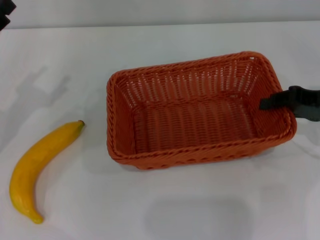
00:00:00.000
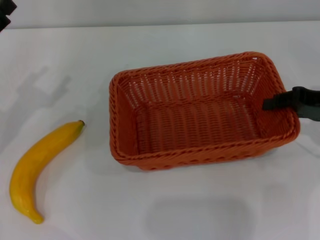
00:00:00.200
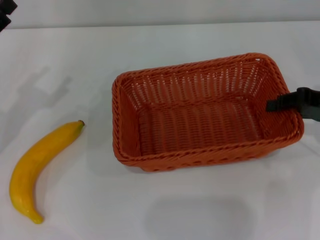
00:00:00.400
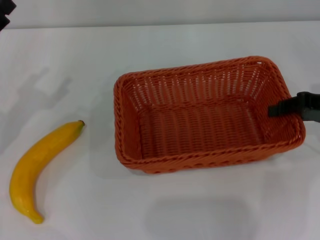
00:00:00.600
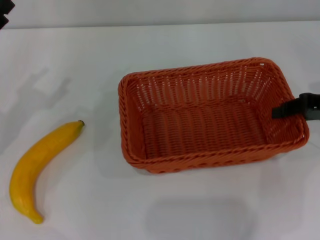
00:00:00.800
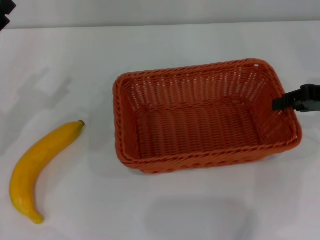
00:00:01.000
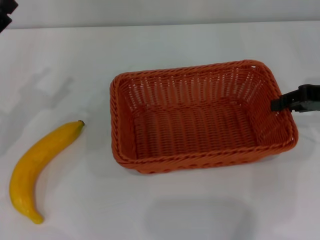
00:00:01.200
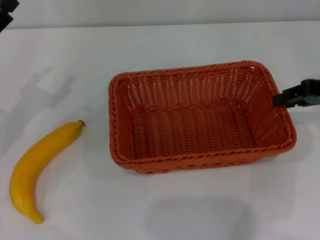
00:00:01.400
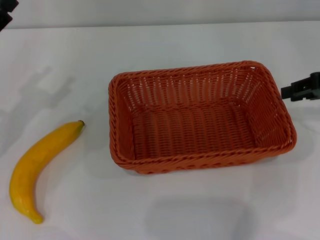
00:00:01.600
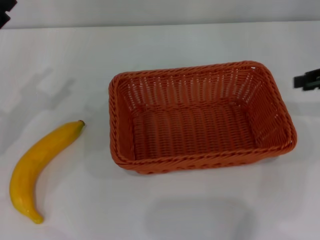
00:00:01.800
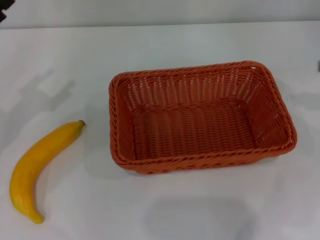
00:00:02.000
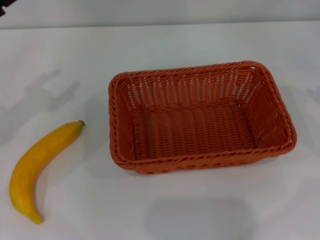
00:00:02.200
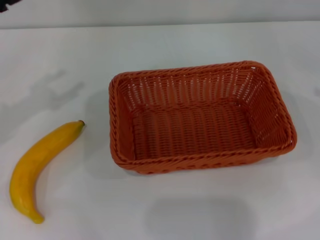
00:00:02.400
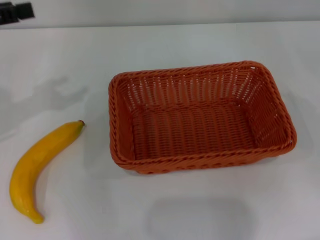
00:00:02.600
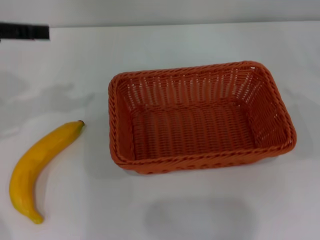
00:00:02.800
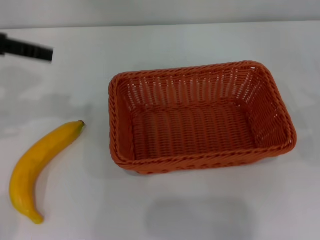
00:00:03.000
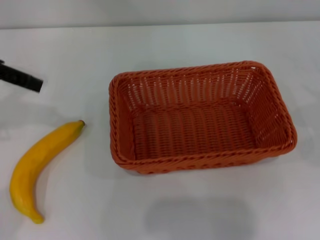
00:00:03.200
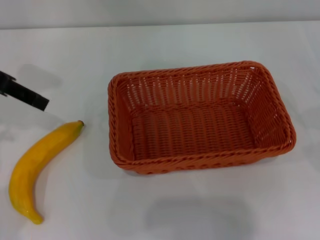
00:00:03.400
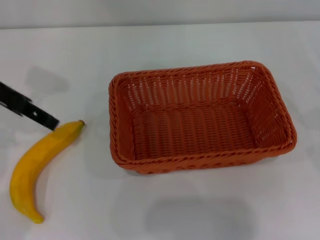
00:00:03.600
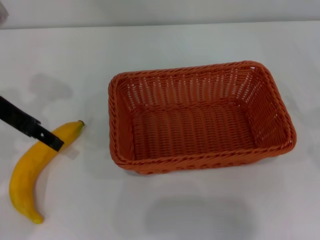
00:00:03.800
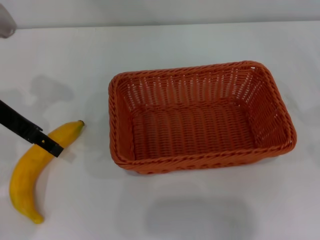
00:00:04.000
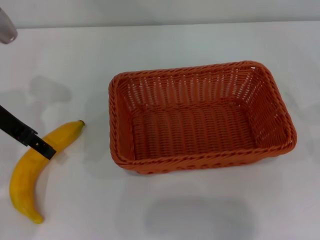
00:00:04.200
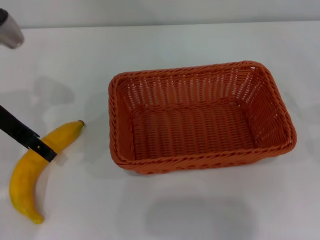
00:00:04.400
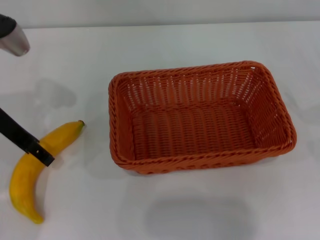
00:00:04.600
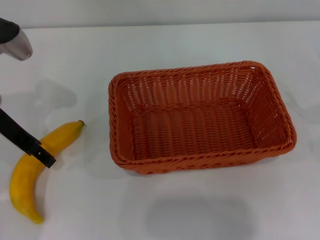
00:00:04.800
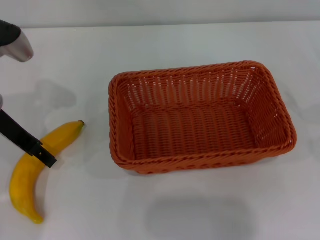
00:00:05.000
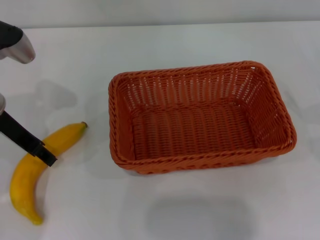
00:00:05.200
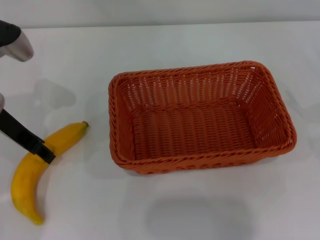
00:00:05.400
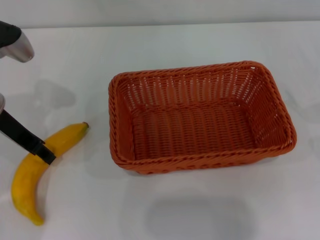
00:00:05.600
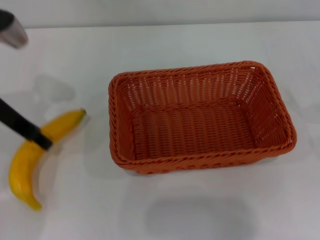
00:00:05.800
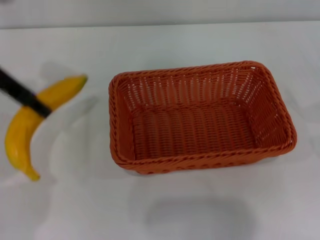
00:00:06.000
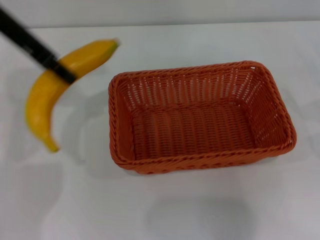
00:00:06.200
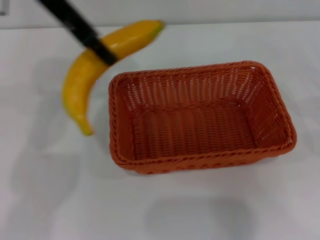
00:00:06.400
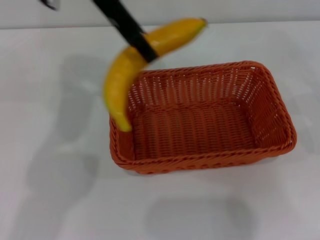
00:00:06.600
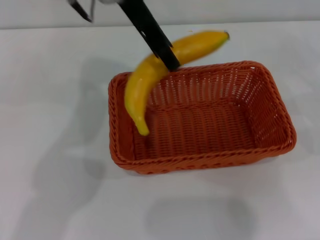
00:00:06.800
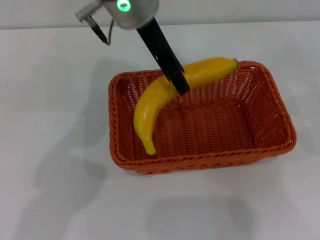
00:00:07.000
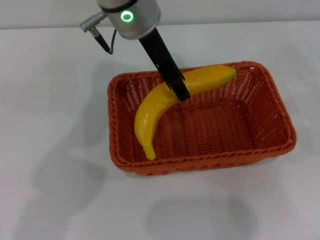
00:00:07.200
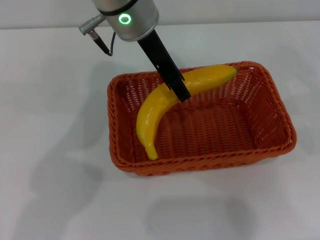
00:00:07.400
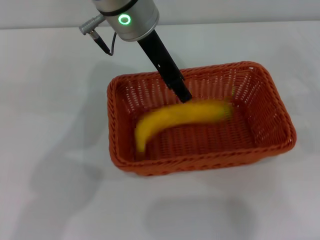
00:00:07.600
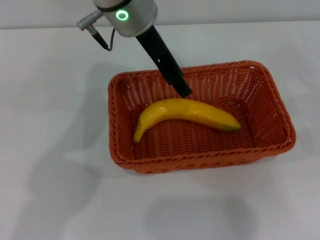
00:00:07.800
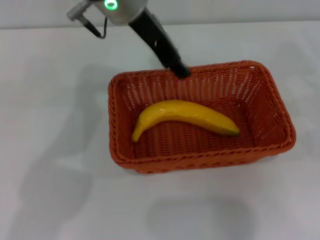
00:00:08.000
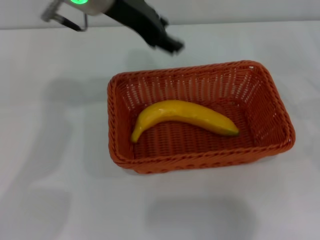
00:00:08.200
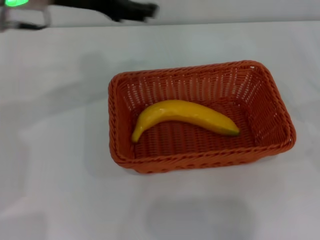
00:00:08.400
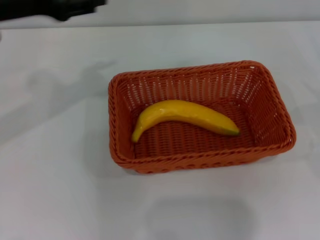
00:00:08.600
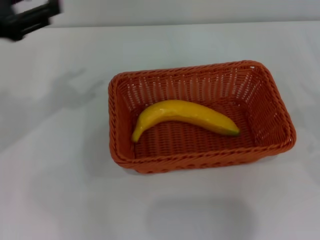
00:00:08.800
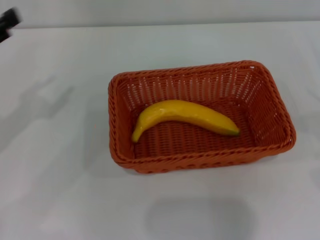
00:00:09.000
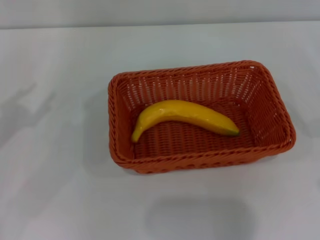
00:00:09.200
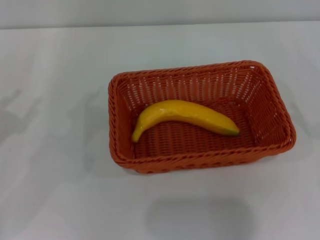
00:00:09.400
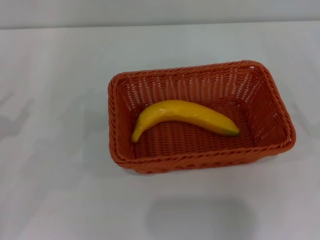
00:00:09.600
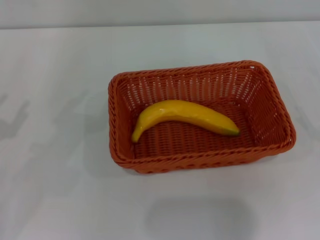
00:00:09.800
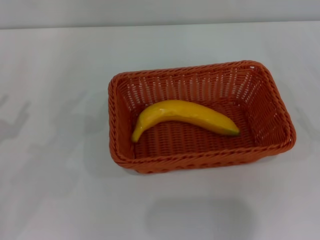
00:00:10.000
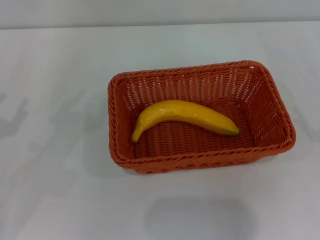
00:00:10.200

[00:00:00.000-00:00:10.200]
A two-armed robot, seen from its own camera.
Step, 00:00:01.600 to 00:00:06.000: Pick up the banana with the left gripper.
Step, 00:00:06.200 to 00:00:08.000: Place the banana into the light basket with the left gripper.
00:00:00.000 to 00:00:01.400: The grippers stay close to where they were, moving slightly.
00:00:01.400 to 00:00:03.000: The right gripper goes roughly 15 cm to the right and backward; the left gripper travels upward by about 15 cm.
00:00:03.000 to 00:00:04.400: The left gripper goes approximately 10 cm downward.
00:00:04.400 to 00:00:05.800: The left gripper closes.
00:00:05.800 to 00:00:07.200: The left gripper shifts roughly 20 cm to the right.
00:00:07.200 to 00:00:08.800: The left gripper travels to the left by some 25 cm, and opens.
00:00:08.800 to 00:00:10.200: The left gripper goes about 15 cm downward, backward and to the left.

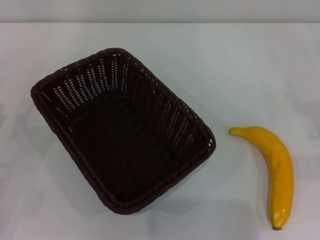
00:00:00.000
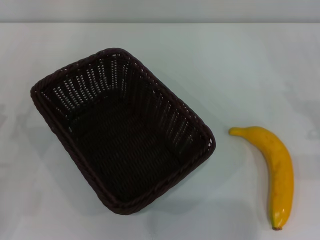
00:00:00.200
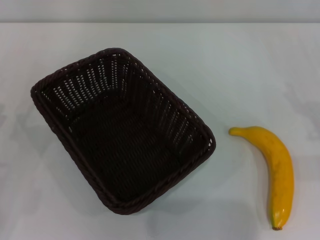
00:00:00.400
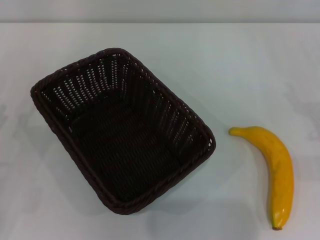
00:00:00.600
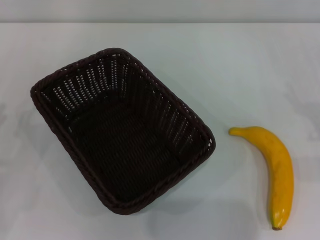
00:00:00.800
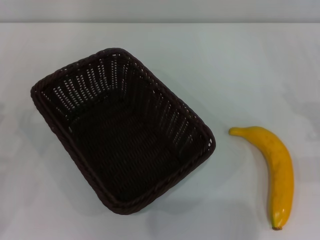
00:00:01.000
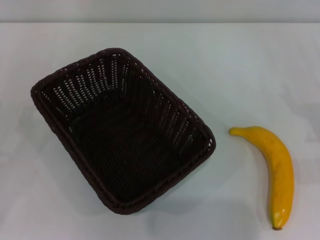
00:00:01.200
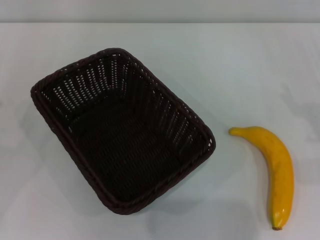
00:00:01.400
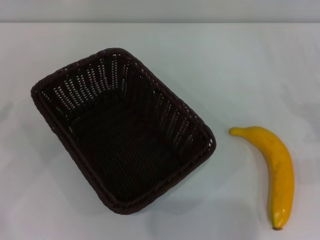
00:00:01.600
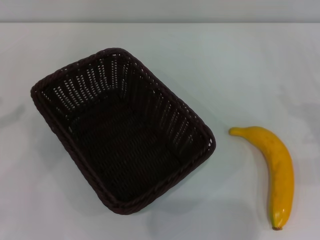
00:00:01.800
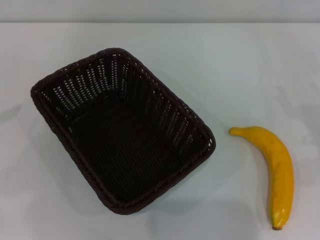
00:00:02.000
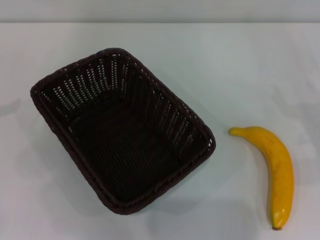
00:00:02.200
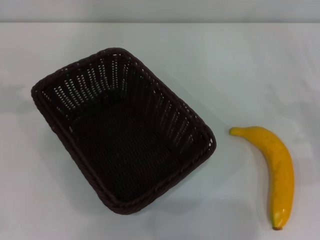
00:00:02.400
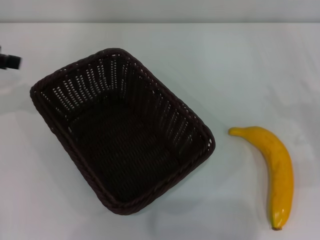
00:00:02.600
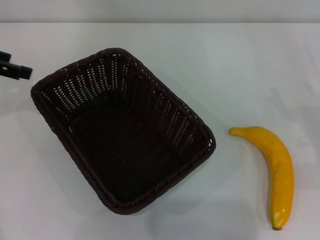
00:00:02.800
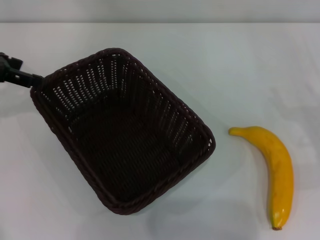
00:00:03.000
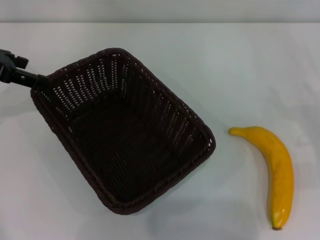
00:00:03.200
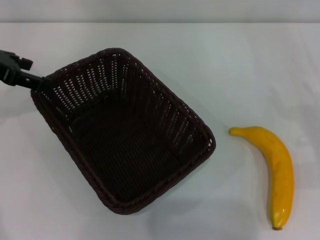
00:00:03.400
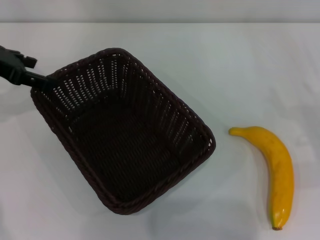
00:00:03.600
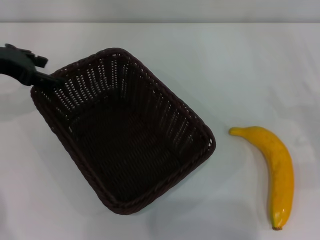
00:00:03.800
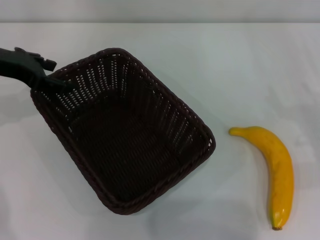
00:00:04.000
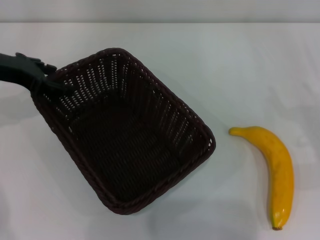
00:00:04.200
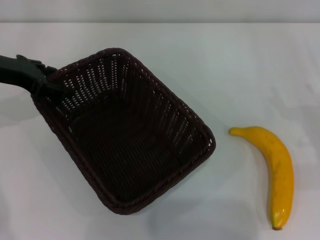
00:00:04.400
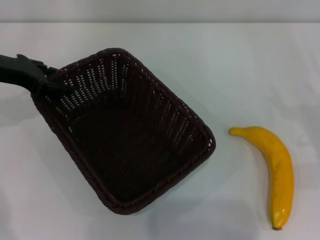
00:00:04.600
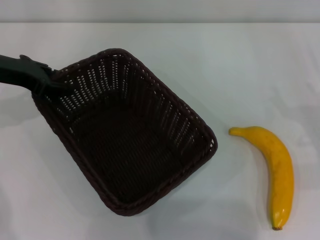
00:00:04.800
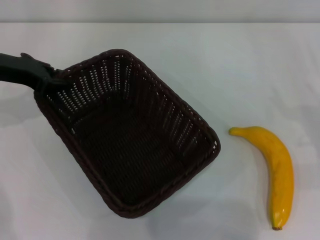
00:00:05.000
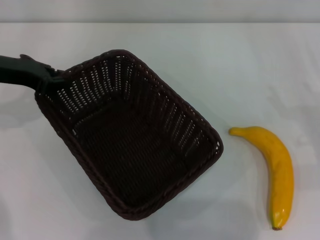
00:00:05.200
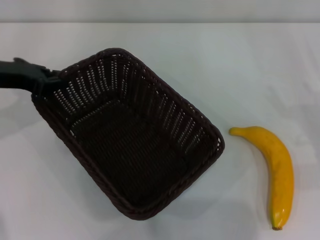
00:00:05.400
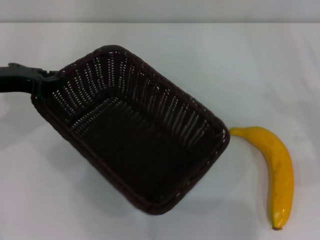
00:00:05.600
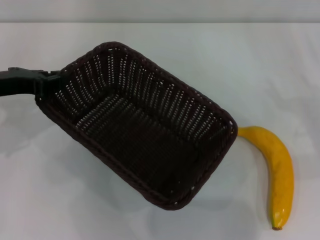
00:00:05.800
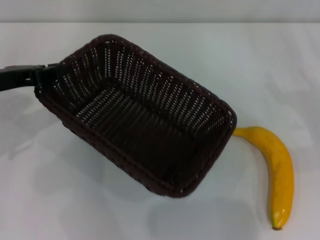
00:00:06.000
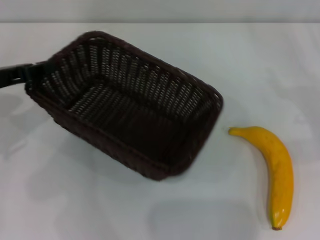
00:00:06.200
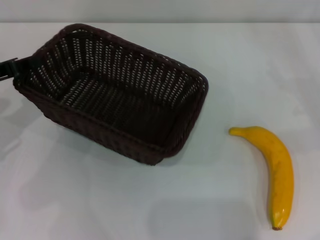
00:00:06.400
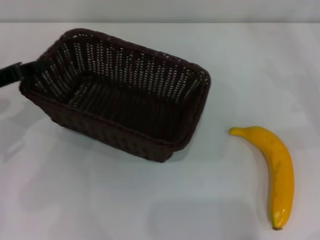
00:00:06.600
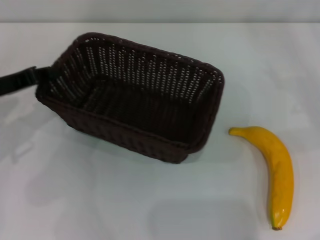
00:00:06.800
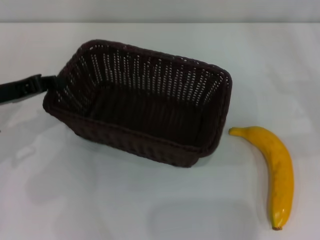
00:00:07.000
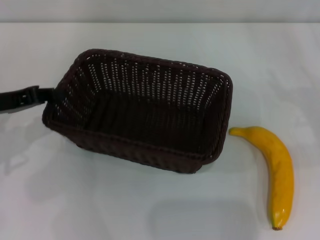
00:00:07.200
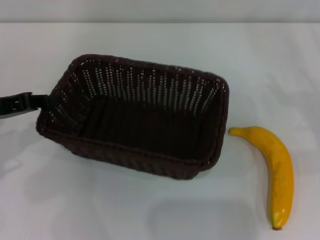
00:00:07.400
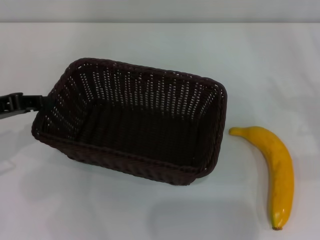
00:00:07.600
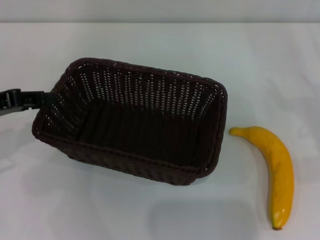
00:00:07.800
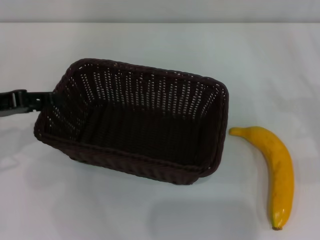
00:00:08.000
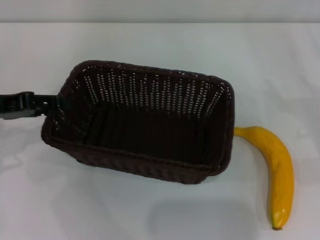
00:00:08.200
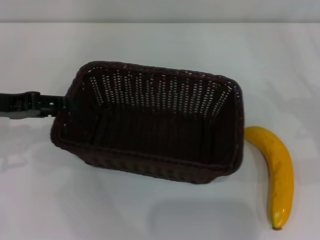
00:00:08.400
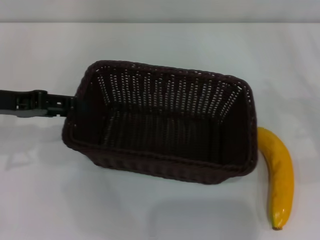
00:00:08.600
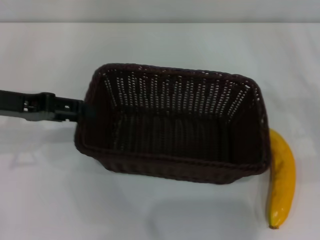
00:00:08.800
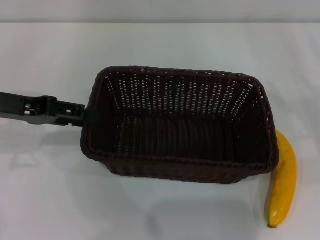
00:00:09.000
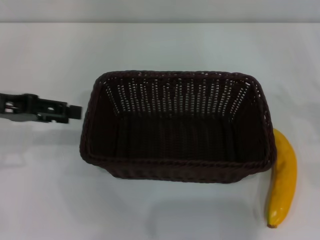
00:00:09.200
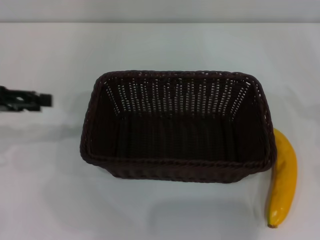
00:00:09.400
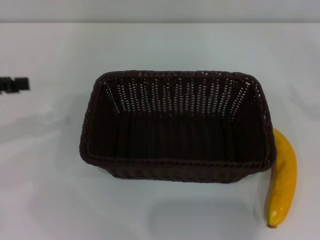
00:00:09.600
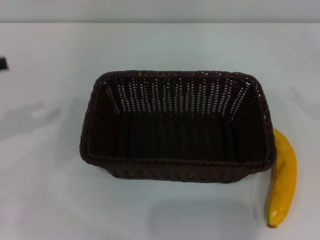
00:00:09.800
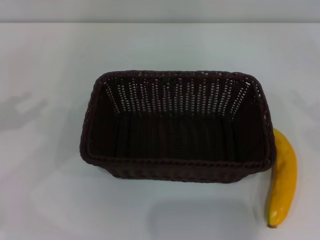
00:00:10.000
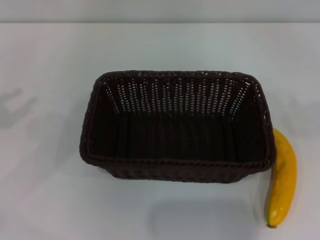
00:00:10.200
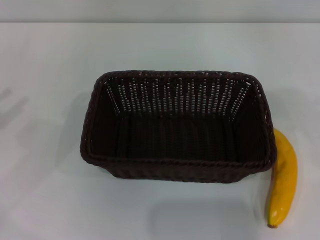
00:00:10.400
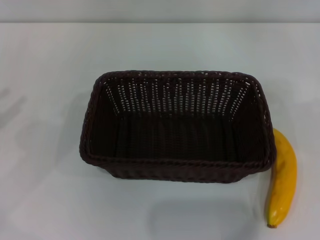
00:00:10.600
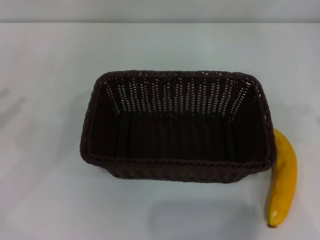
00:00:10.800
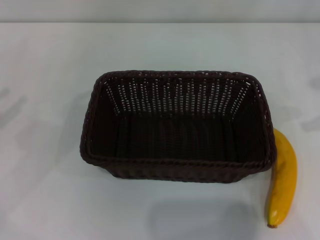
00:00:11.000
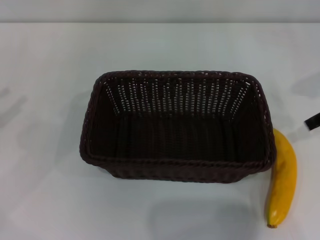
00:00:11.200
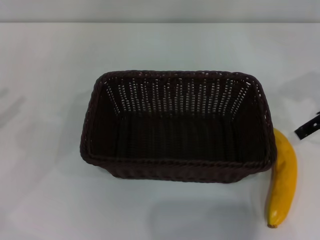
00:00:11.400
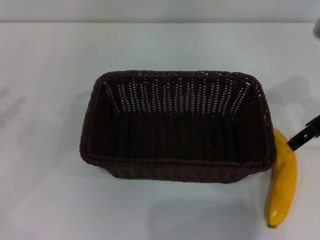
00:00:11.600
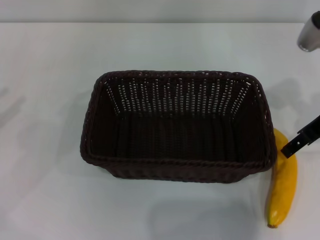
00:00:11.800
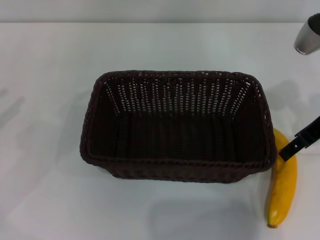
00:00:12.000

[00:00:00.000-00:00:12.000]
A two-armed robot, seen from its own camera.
Step, 00:00:00.000 to 00:00:06.400: Pick up the dark basket with the left gripper.
Step, 00:00:06.600 to 00:00:09.400: Place the dark basket in the center of view with the left gripper.
00:00:01.600 to 00:00:03.000: The left gripper moves forward and to the right, some 20 cm.
00:00:03.000 to 00:00:04.400: The left gripper shifts by roughly 5 cm.
00:00:04.400 to 00:00:06.000: The left gripper goes approximately 5 cm backward, and closes its fingers.
00:00:06.000 to 00:00:07.600: The grippers move only a little.
00:00:07.600 to 00:00:09.000: The left gripper opens its fingers.
00:00:09.000 to 00:00:10.400: The left gripper is displaced to the left and backward by about 15 cm. The right gripper is displaced upward by approximately 15 cm.
00:00:10.400 to 00:00:12.000: The right gripper is displaced to the left by roughly 20 cm.
